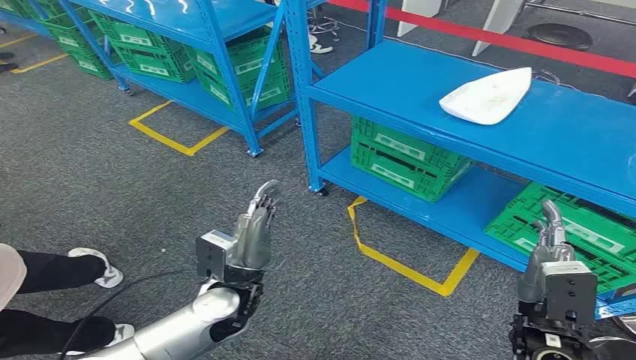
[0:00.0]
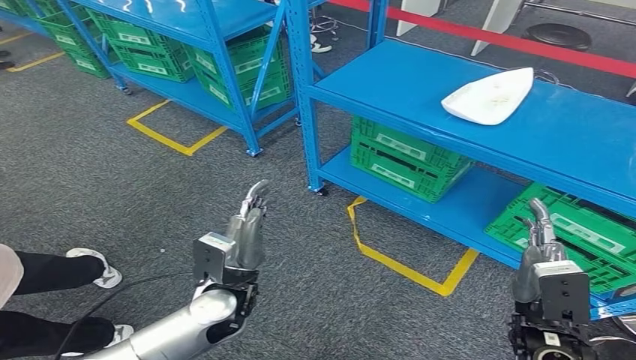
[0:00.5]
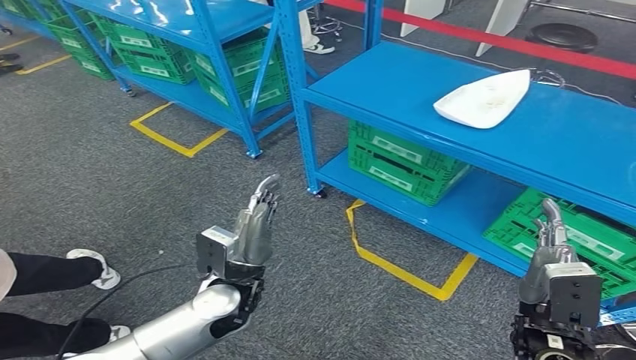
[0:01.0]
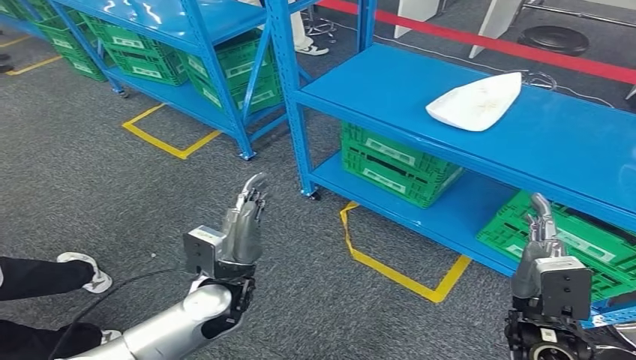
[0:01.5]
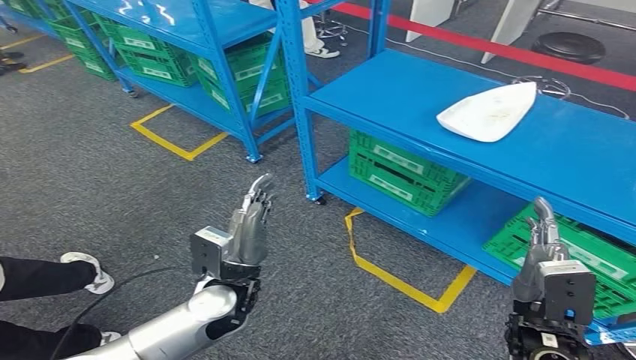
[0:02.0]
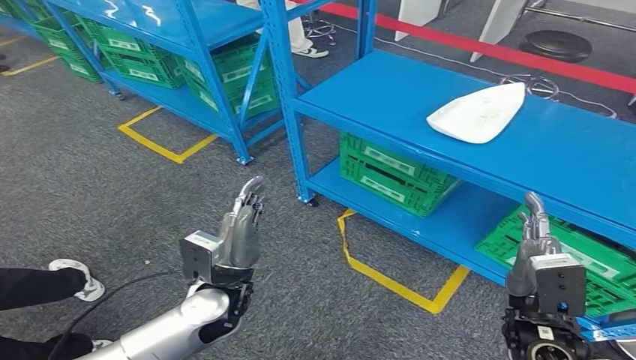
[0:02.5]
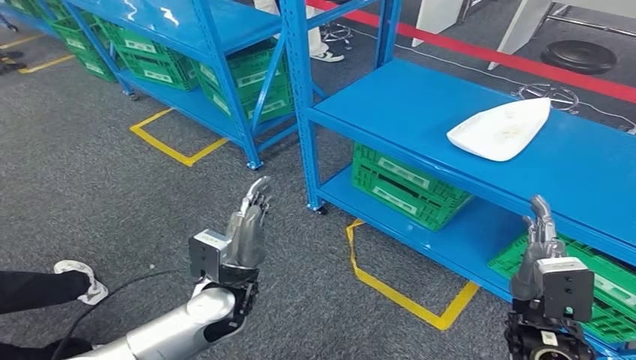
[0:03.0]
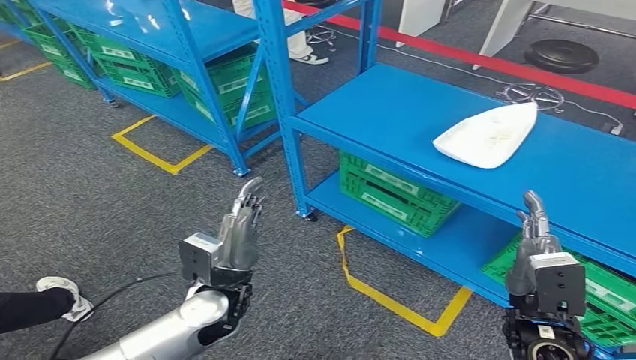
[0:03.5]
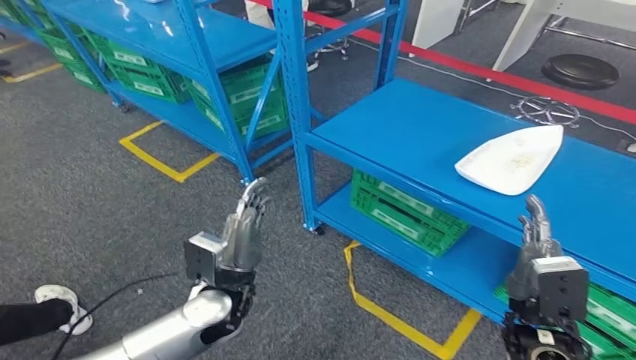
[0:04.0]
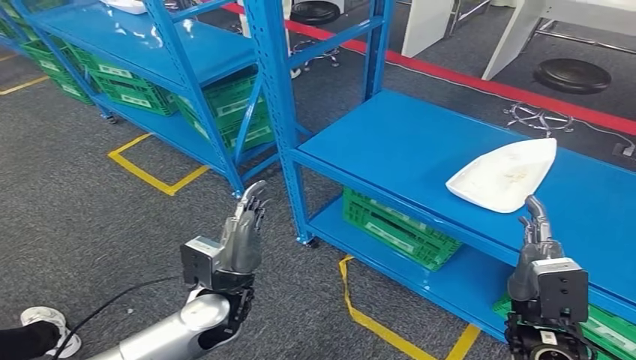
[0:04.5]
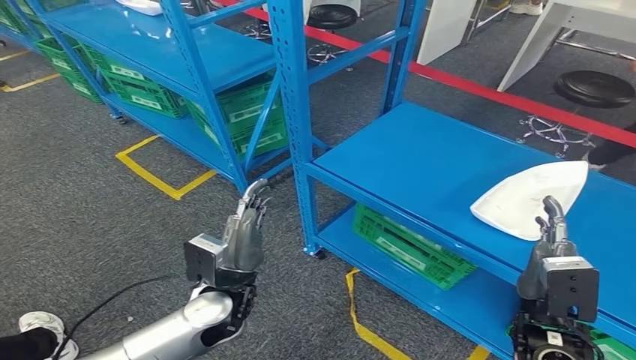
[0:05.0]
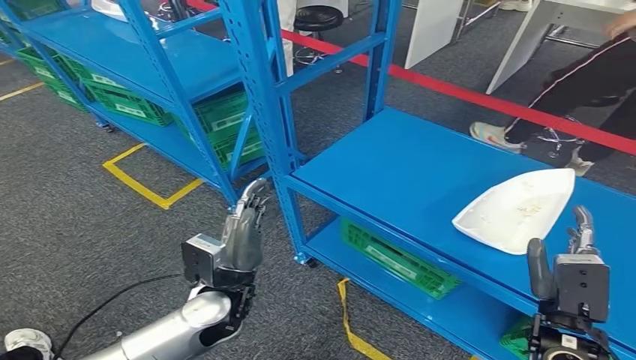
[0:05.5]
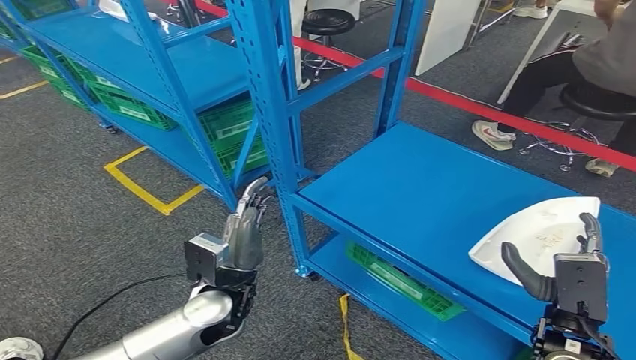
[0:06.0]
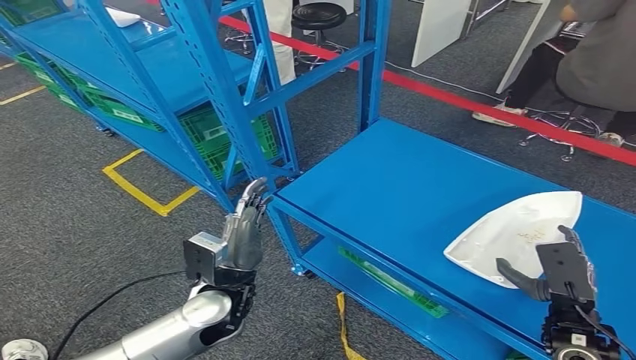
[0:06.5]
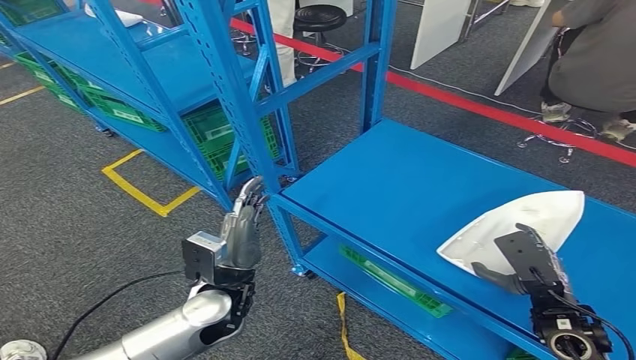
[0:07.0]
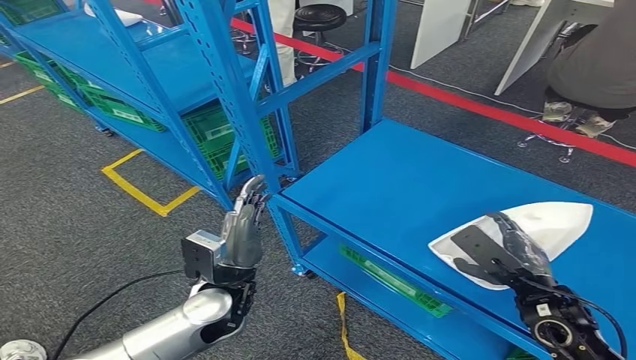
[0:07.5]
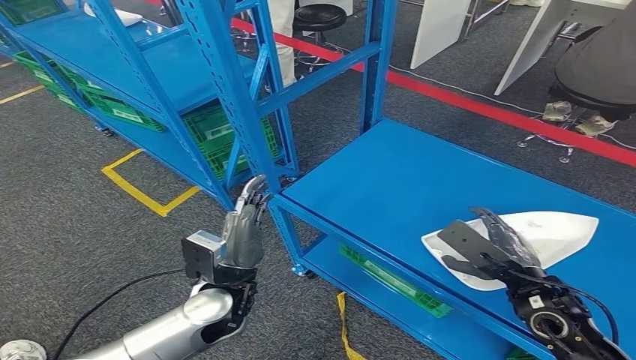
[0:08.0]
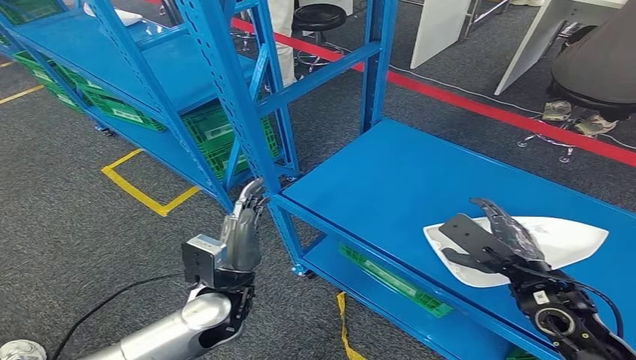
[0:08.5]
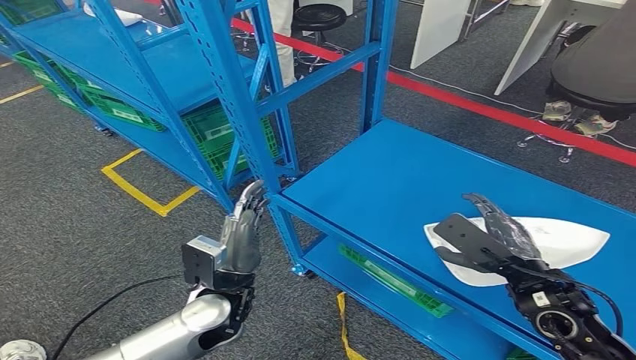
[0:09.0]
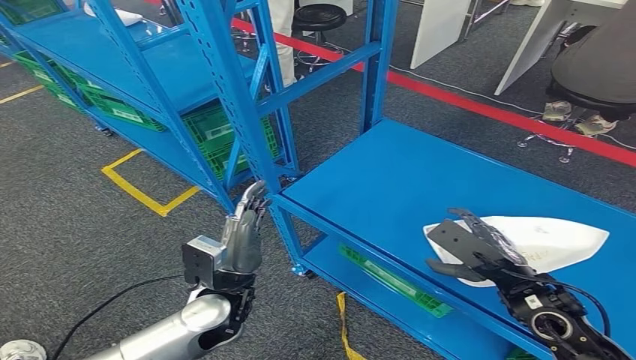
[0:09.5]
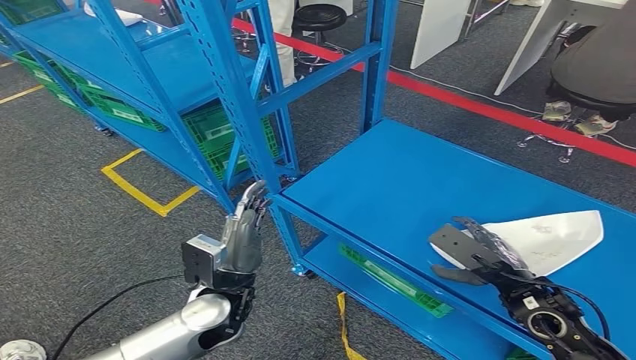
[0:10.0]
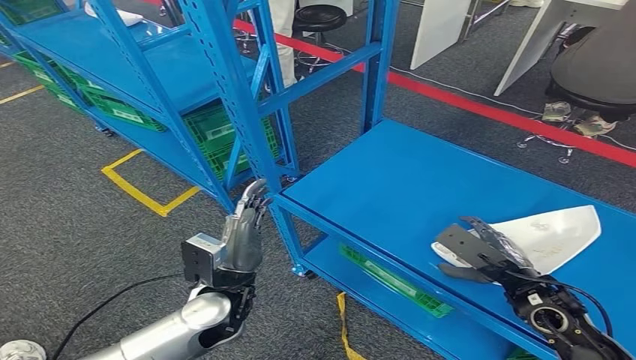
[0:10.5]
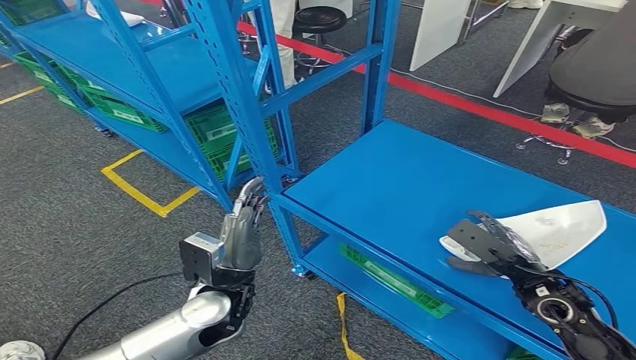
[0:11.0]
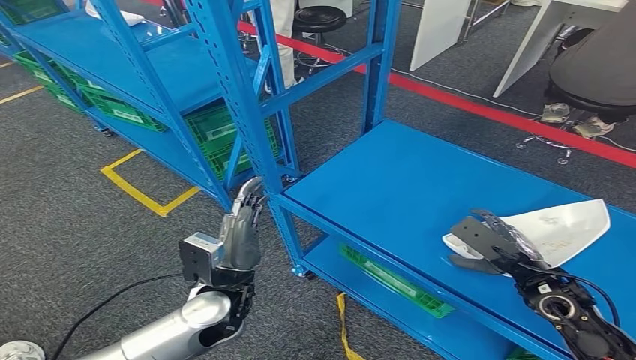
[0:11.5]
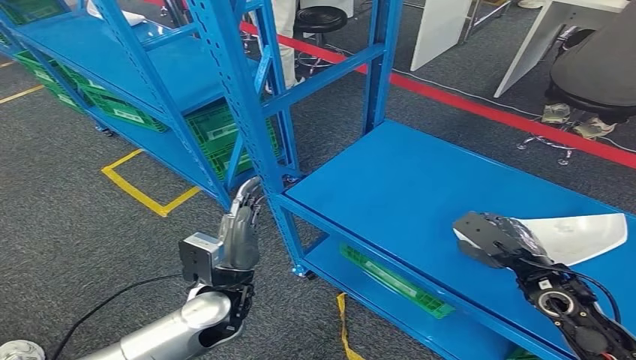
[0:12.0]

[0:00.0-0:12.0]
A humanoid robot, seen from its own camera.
0:08.0 to 0:10.0: The hands make only small movements.
0:10.0 to 0:12.0: The right hand moves some 5 cm.

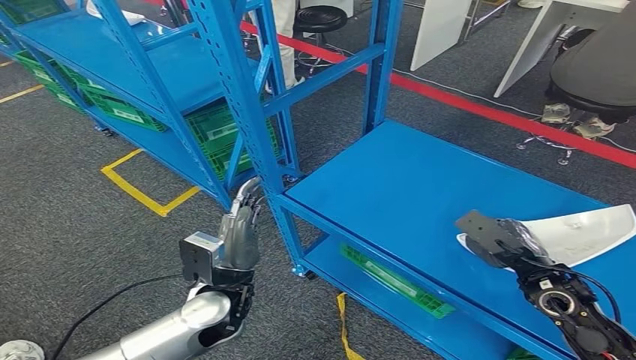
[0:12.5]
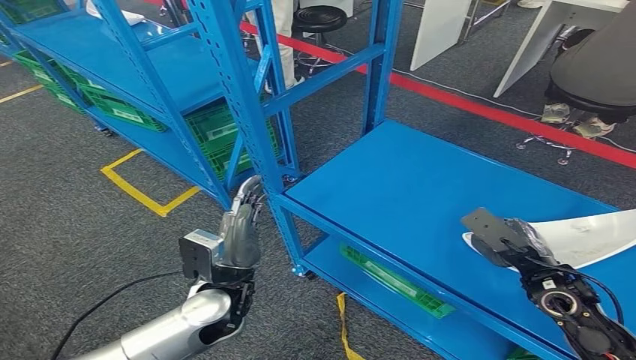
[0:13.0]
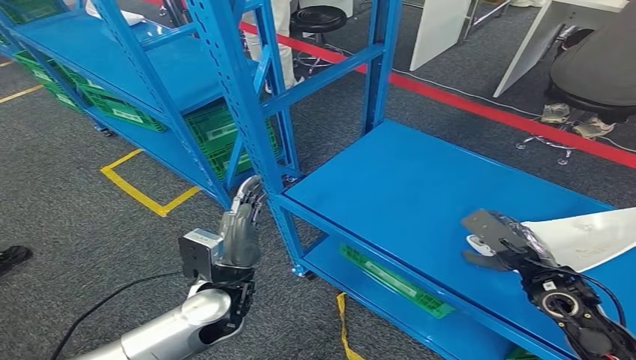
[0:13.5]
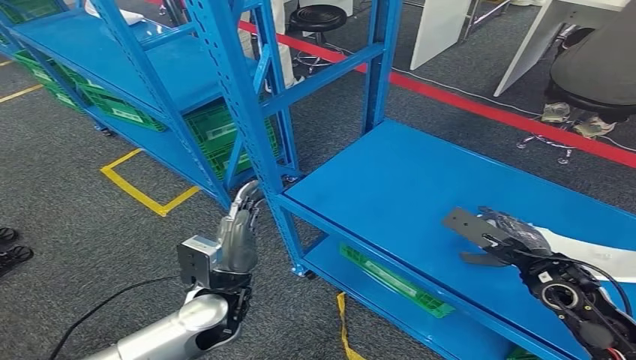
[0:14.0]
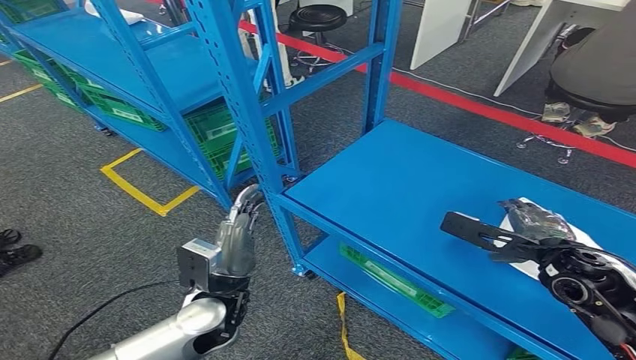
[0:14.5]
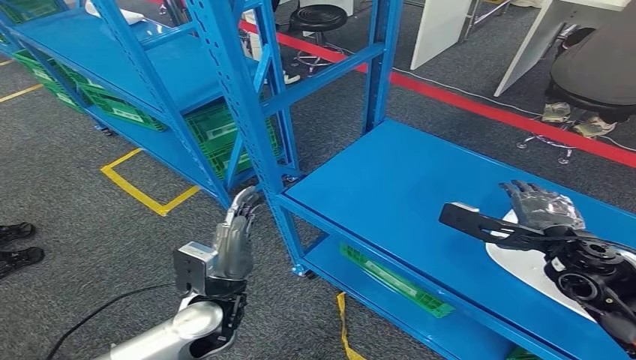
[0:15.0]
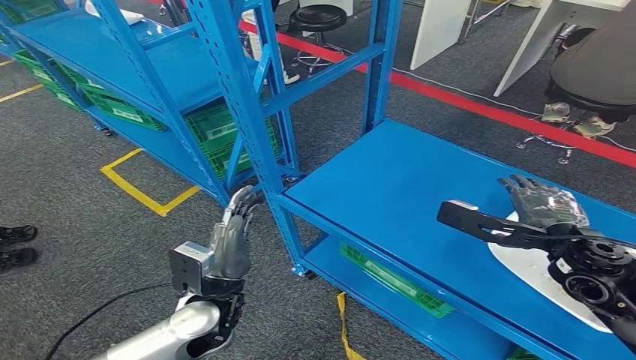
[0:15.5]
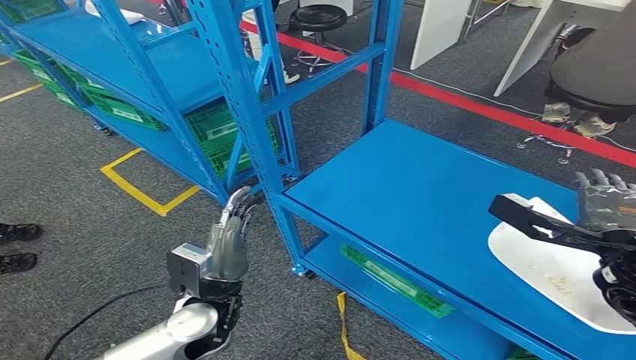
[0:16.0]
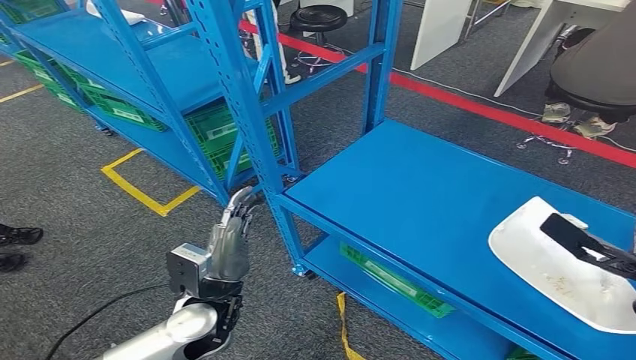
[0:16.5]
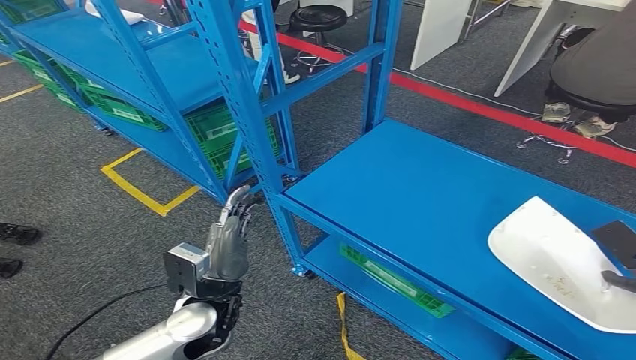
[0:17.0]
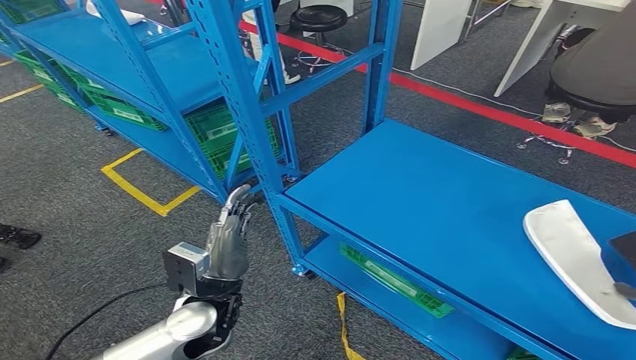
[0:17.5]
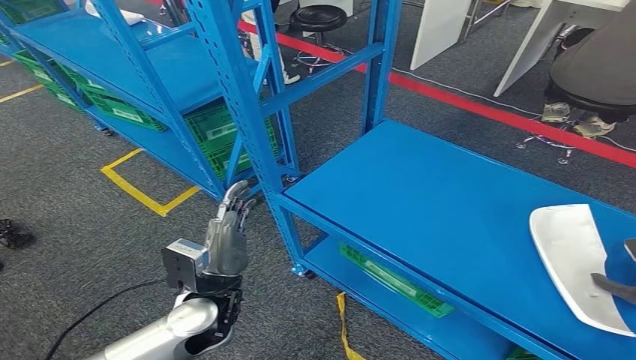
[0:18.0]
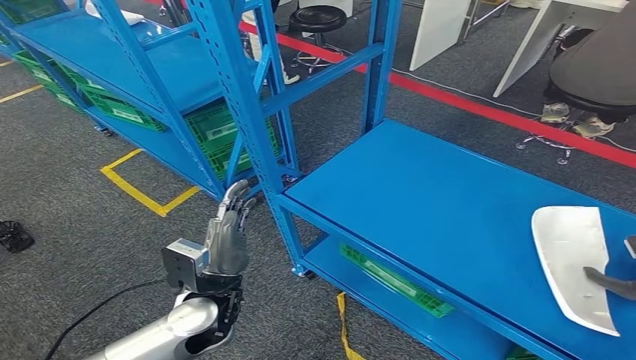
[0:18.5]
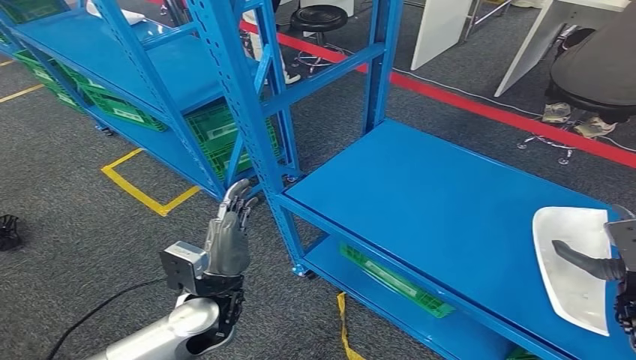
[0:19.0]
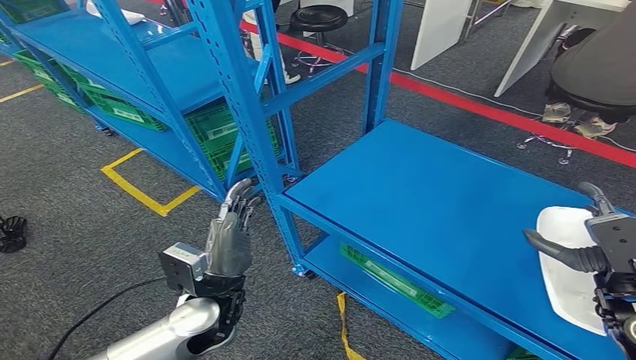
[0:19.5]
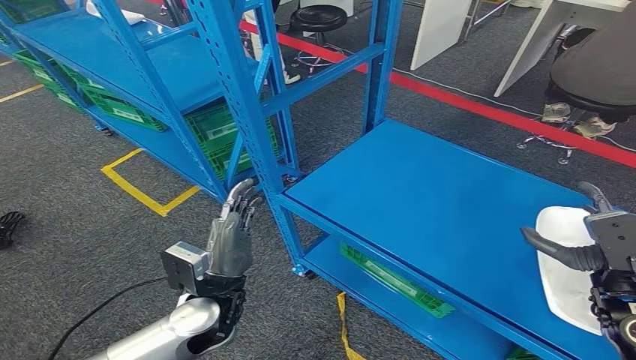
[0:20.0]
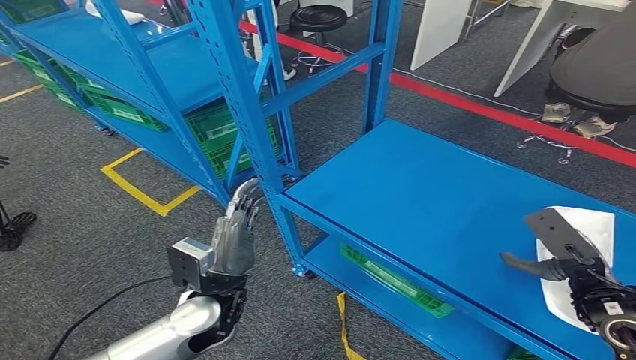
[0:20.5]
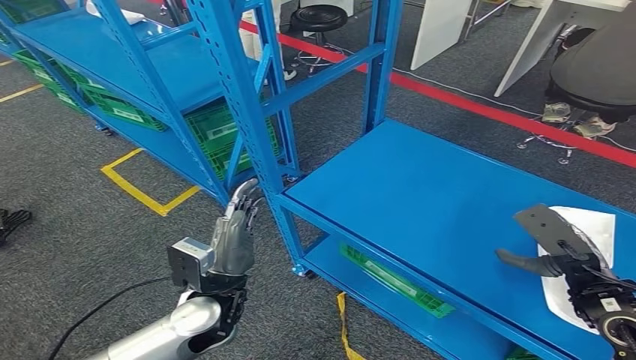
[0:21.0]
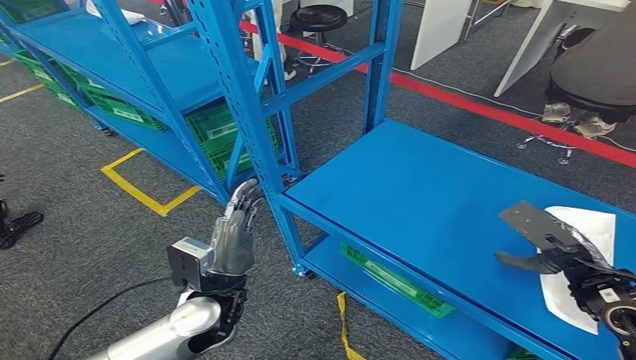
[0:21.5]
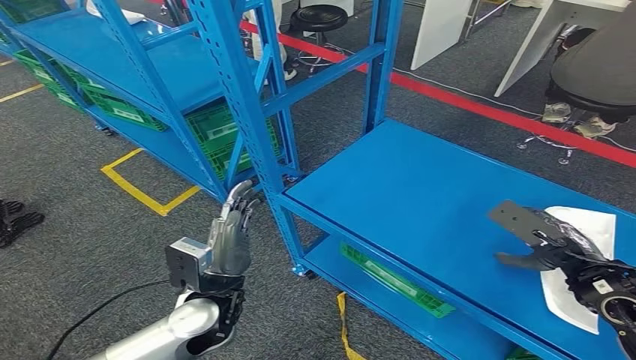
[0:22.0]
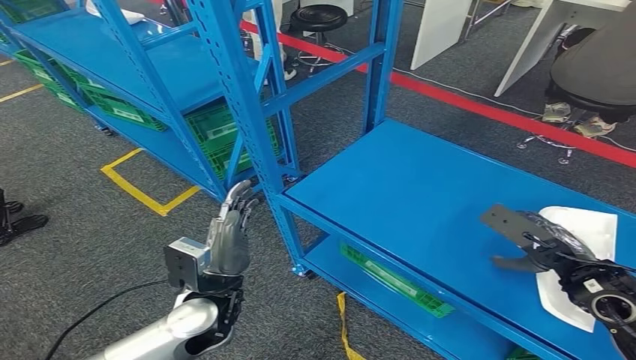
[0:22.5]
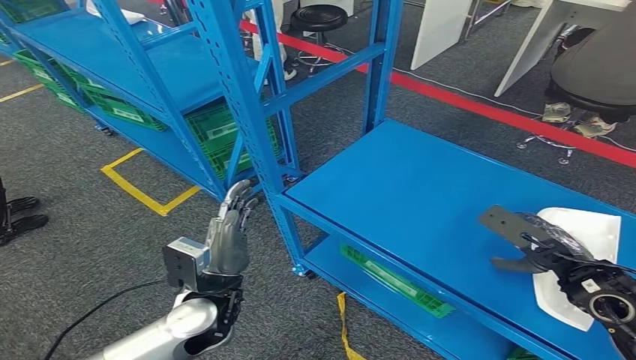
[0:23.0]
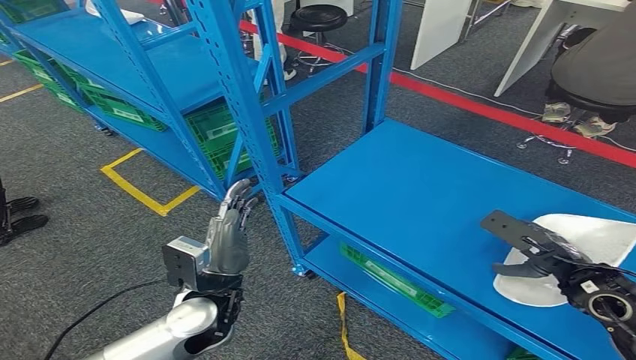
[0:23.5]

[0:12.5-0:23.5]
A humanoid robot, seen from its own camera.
0:12.5 to 0:14.5: The right hand shifts approximately 5 cm upward.
0:14.5 to 0:16.0: The right hand heads upward, covering about 5 cm.
0:16.0 to 0:18.0: The right hand heads to the right and downward, covering approximately 20 cm.
0:18.0 to 0:20.0: The right hand shifts about 15 cm to the left and upward.
0:21.5 to 0:23.5: The hands stay close to where they were, moving slightly.
